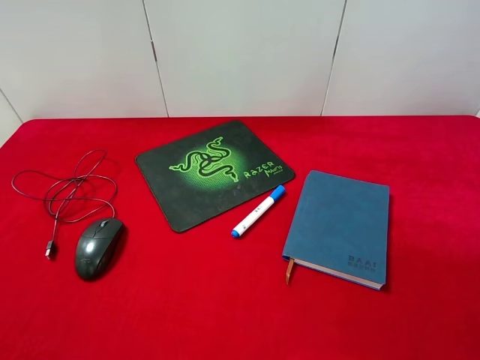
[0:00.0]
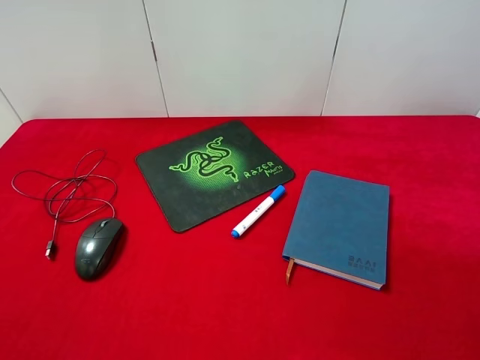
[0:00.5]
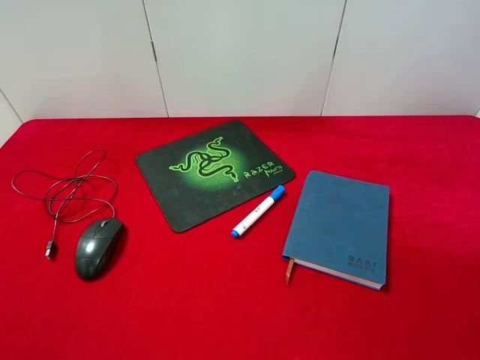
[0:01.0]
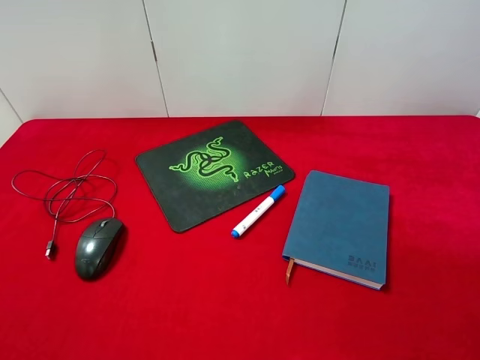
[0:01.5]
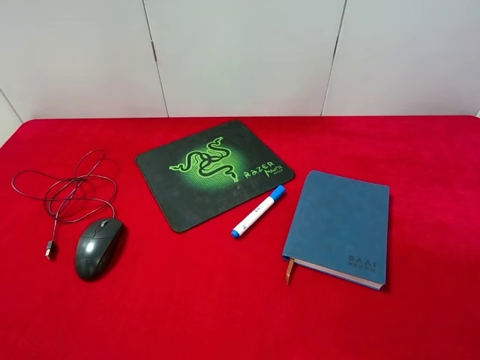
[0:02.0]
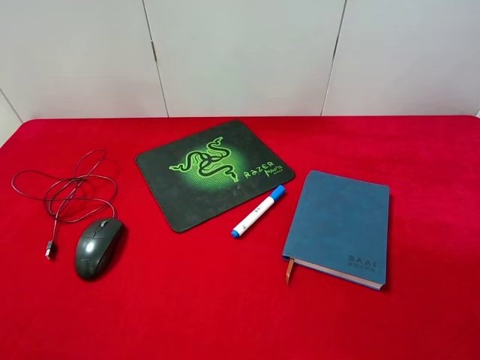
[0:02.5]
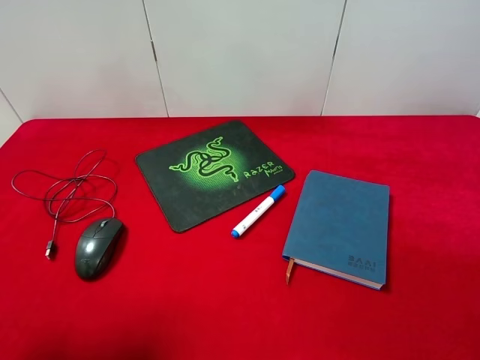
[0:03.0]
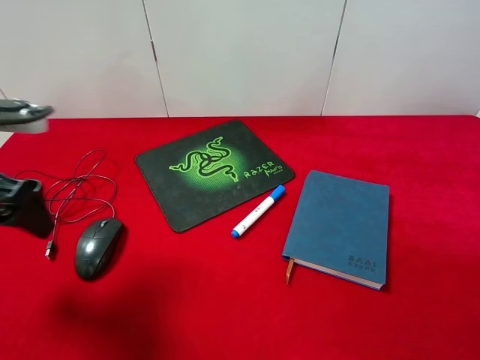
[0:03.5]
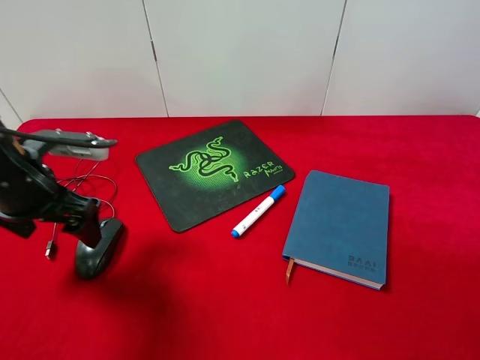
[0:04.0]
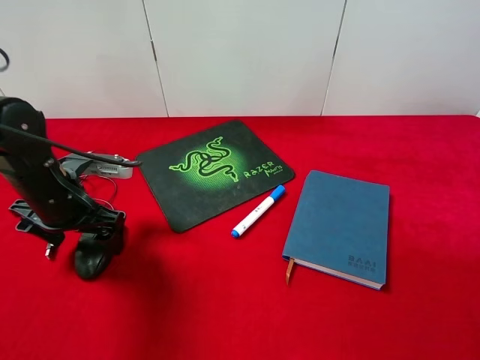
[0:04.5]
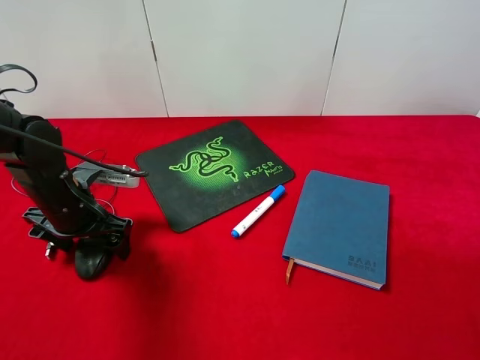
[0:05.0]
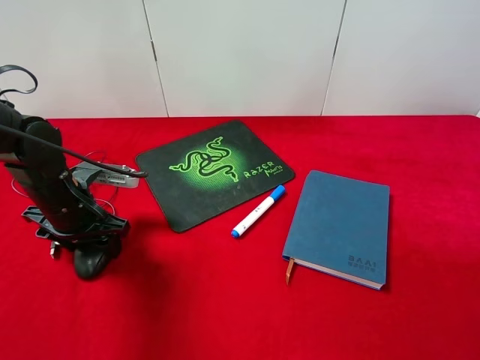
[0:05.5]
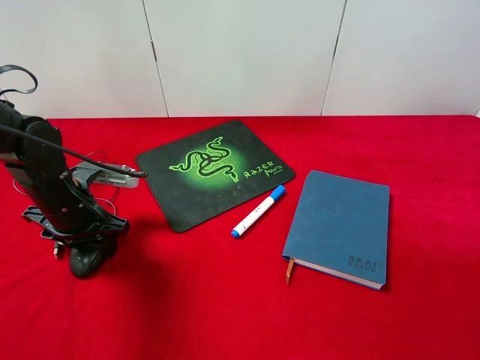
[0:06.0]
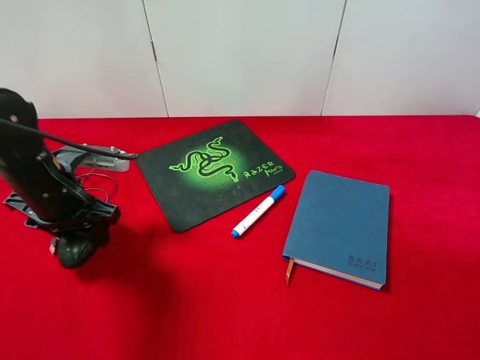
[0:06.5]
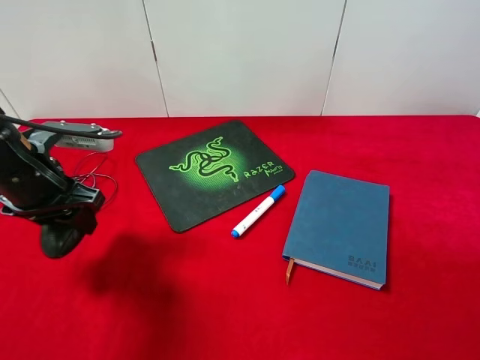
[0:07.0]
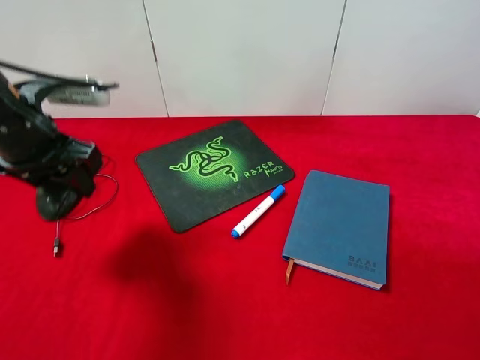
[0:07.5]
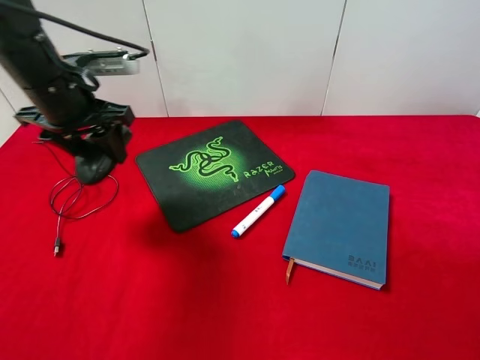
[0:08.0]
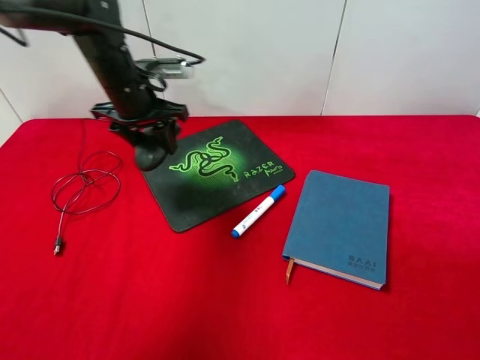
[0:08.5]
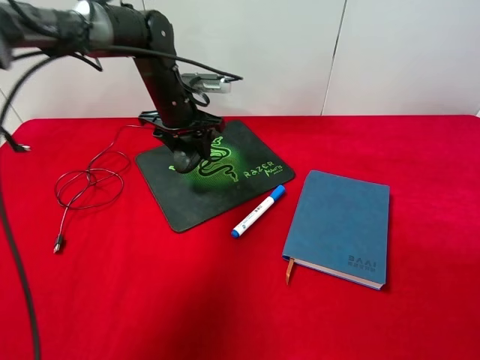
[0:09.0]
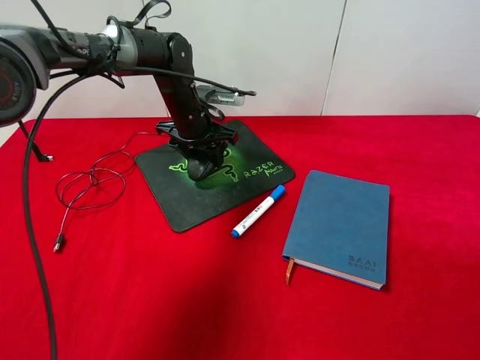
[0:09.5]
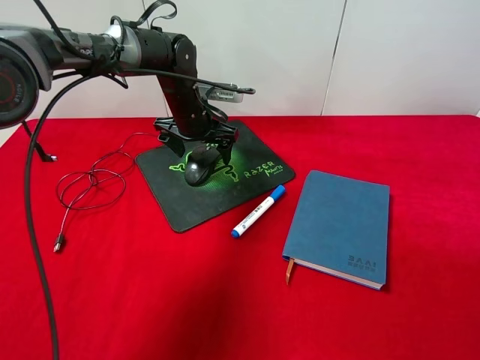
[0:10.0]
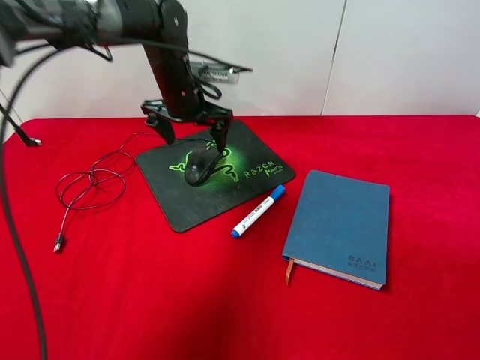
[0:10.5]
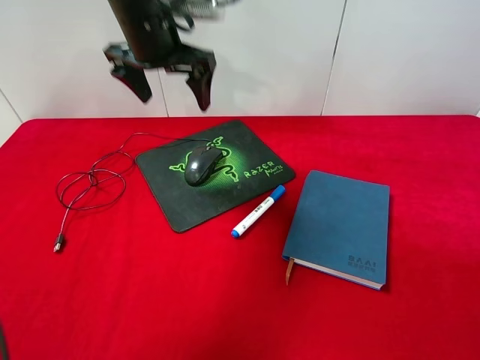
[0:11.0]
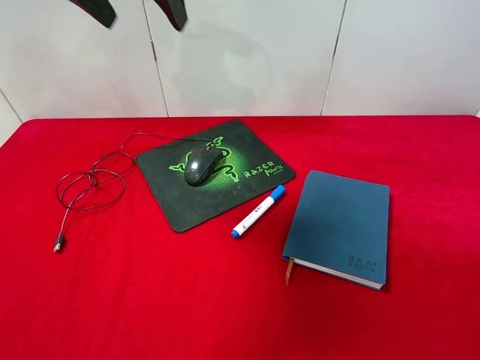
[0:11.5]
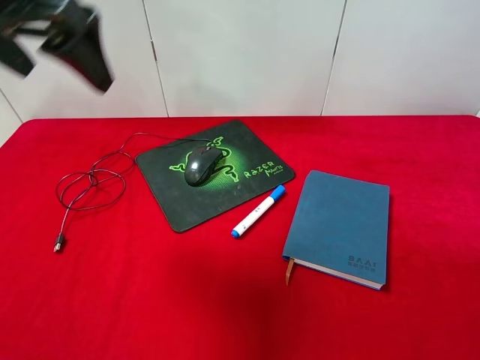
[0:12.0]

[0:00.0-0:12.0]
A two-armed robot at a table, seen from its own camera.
Step, 0:00.0 to 0:06.5: Pick up the mouse with left gripper.
Step, 0:07.0 to 0:10.0: Place the mouse on the mouse pad with left gripper.
0:00.0 to 0:02.0: Both grippers stay put.
0:02.0 to 0:04.0: The left gripper heads forward and downward, covering about 25 cm.
0:04.0 to 0:06.0: The left gripper moves downward, some 10 cm, and closes up.
0:06.0 to 0:08.0: The left gripper travels upward and forward by about 15 cm.
0:08.0 to 0:10.0: The left gripper moves to the right, forward and downward, approximately 20 cm, and opens up.
0:10.0 to 0:12.0: The left gripper heads upward, backward and to the left, covering approximately 35 cm.

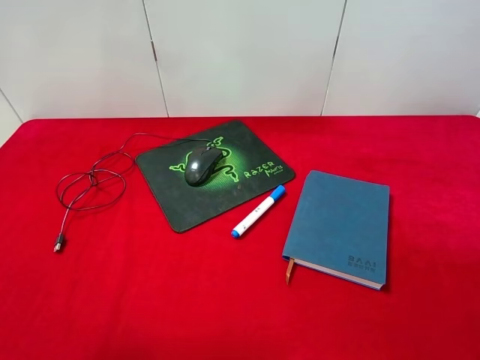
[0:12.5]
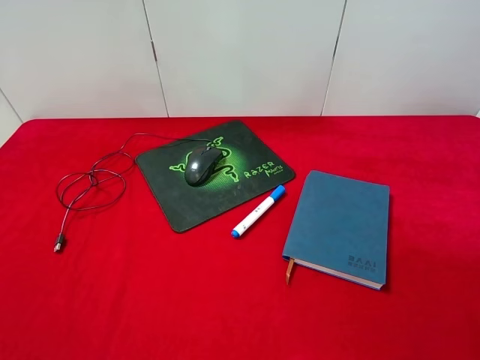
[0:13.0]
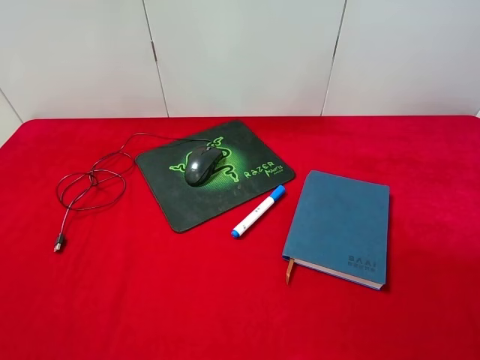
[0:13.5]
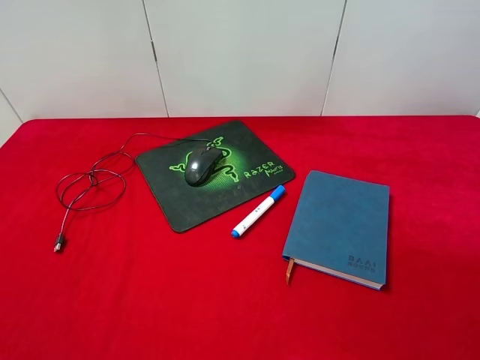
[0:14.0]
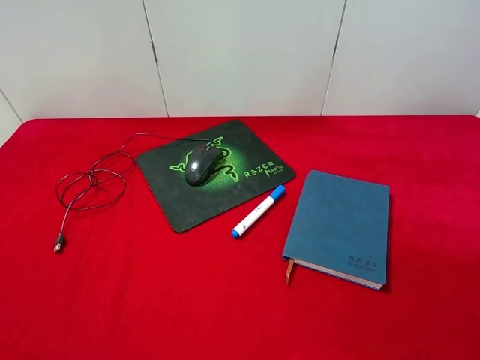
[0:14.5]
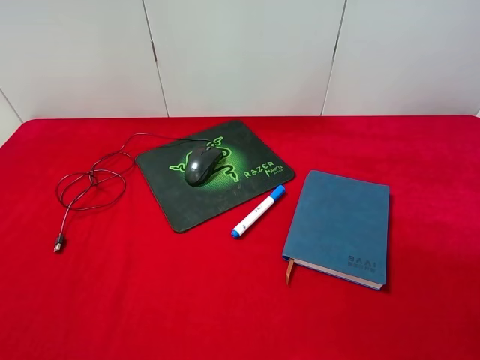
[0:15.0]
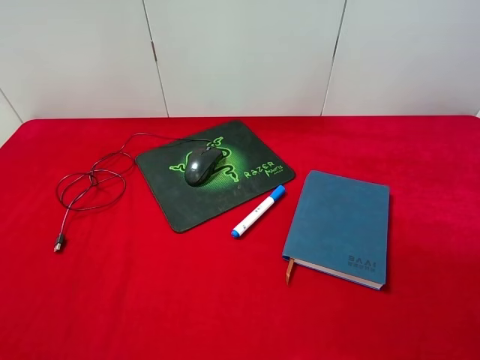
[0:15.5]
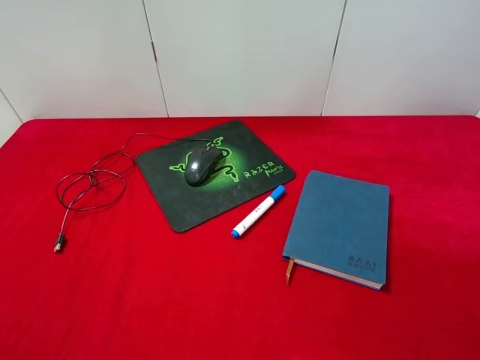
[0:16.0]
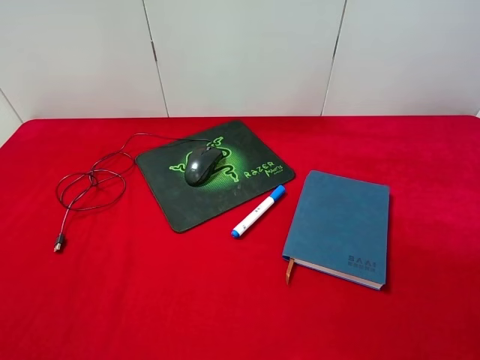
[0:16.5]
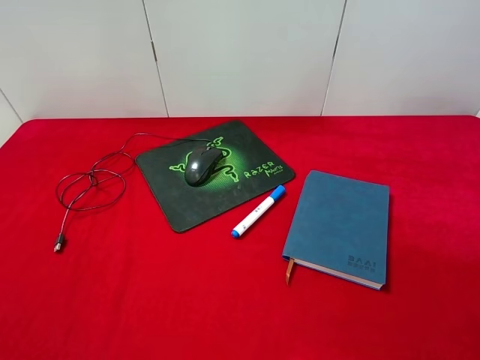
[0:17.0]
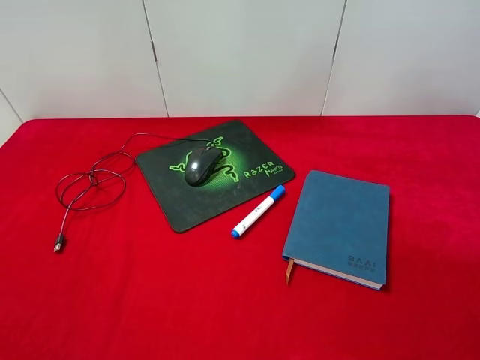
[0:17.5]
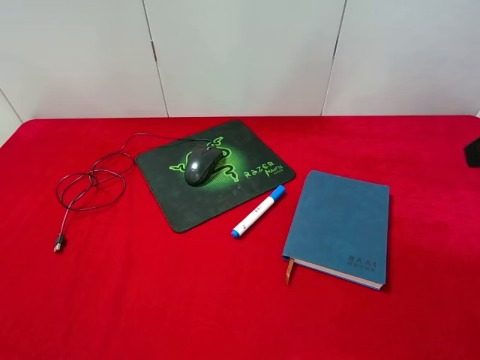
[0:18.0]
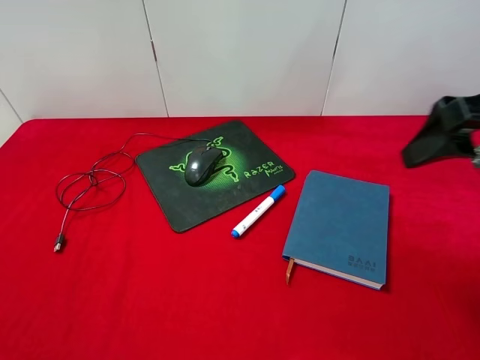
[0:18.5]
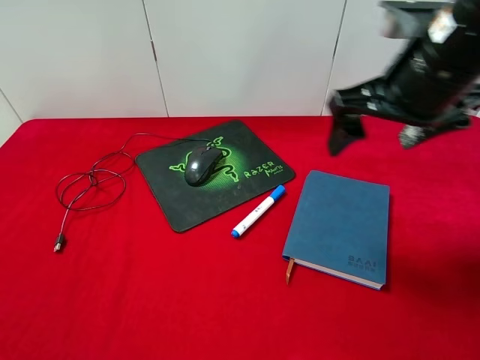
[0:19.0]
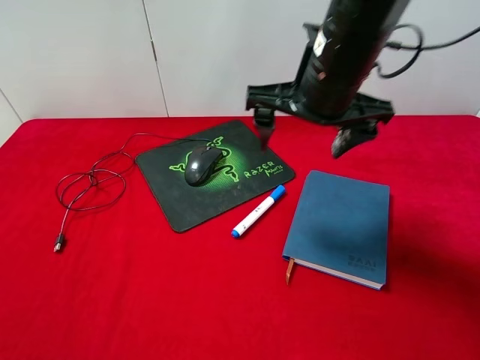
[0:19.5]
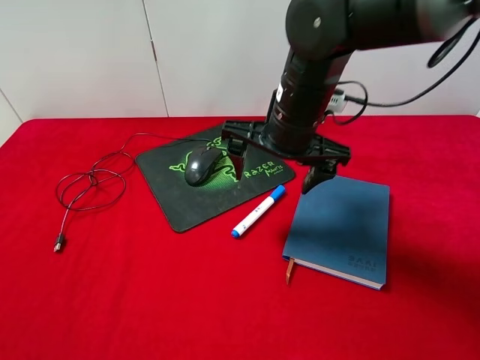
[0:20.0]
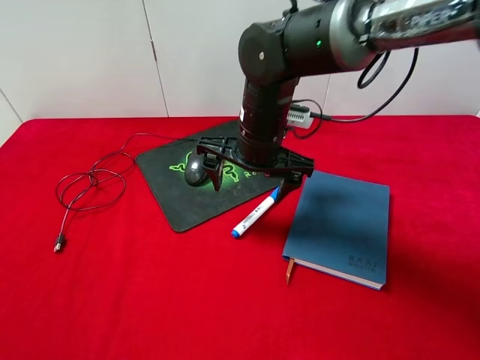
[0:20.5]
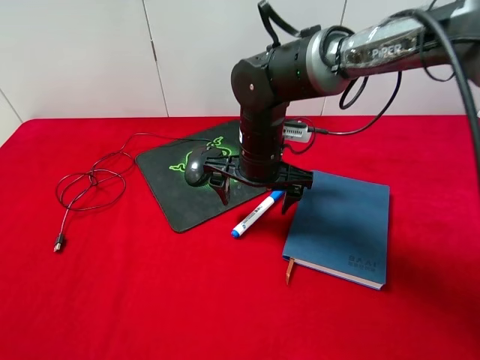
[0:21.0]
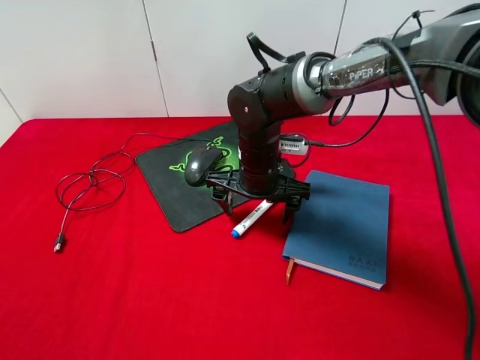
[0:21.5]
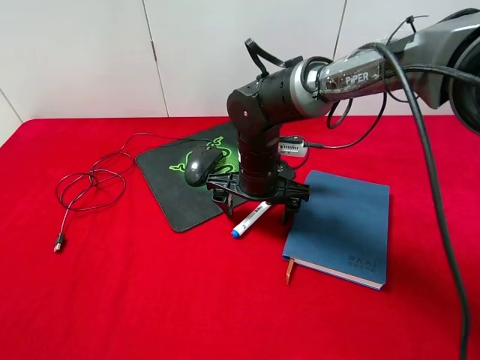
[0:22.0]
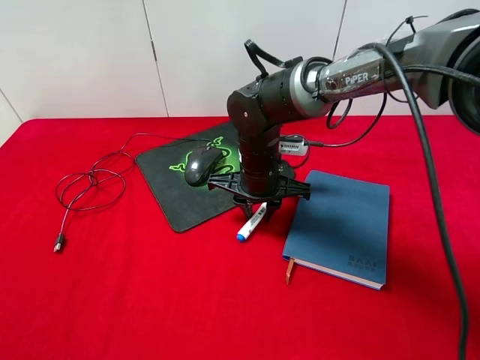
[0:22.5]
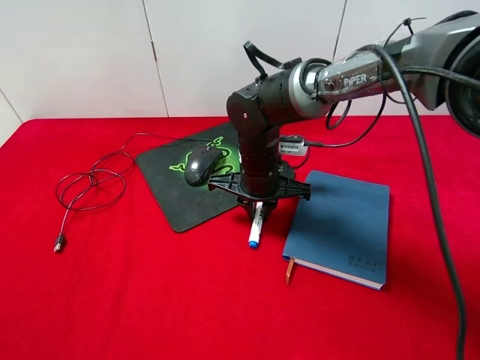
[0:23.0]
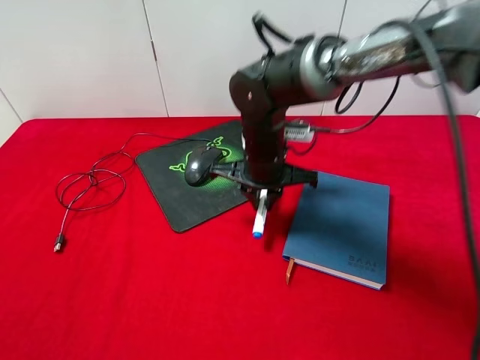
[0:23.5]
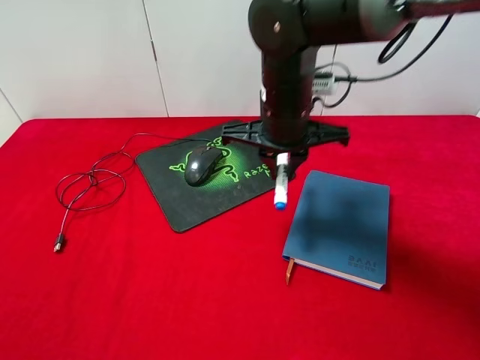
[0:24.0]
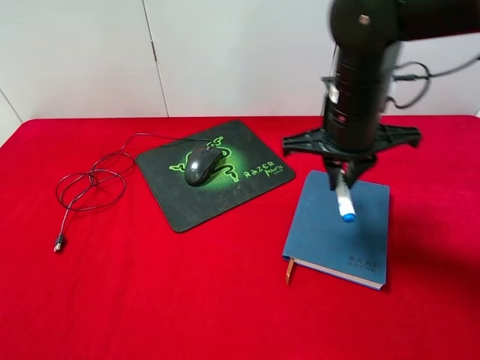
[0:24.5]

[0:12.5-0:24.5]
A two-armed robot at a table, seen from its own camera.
Step, 0:12.5 to 0:23.5: Pick up the marker pen with right gripper.
0:16.5 to 0:18.5: The right gripper goes about 20 cm forward.
0:18.5 to 0:20.5: The right gripper travels to the left, downward and forward by about 30 cm.
0:20.5 to 0:22.5: The right gripper goes roughly 5 cm downward, and closes its fingers.
0:22.5 to 0:24.5: The right gripper goes about 15 cm upward and to the right.

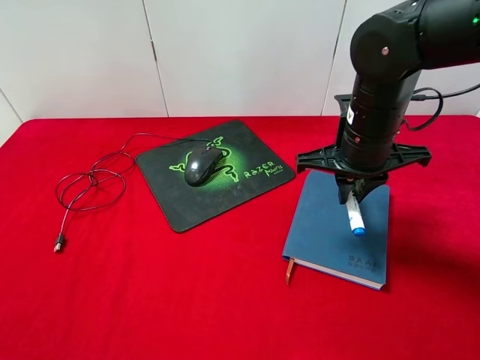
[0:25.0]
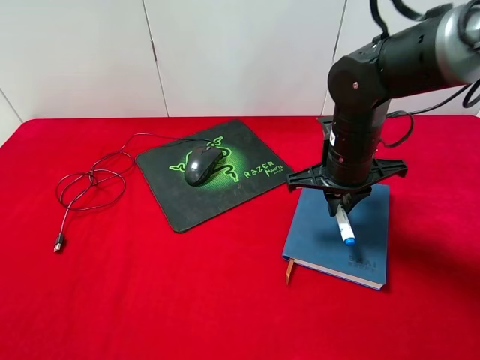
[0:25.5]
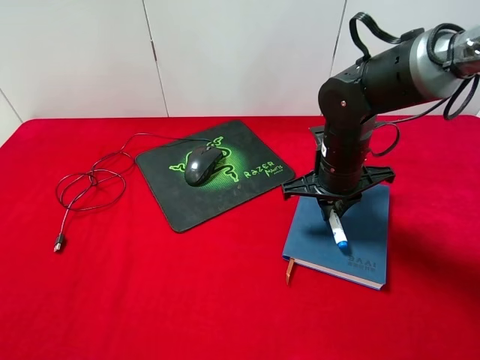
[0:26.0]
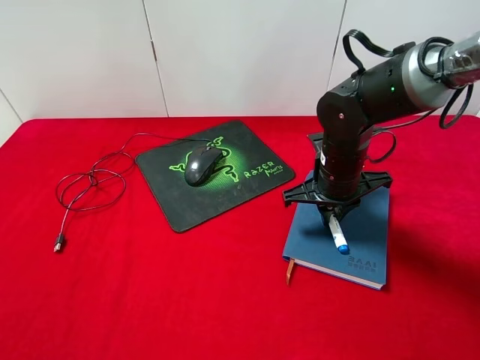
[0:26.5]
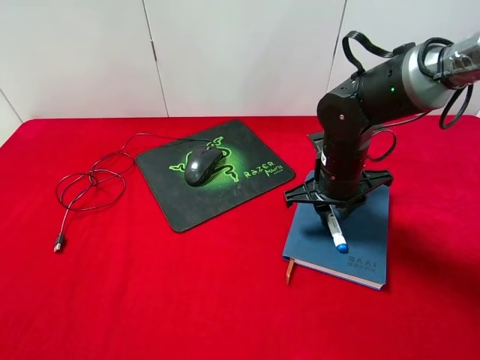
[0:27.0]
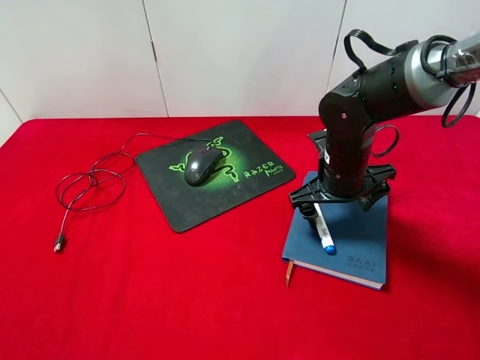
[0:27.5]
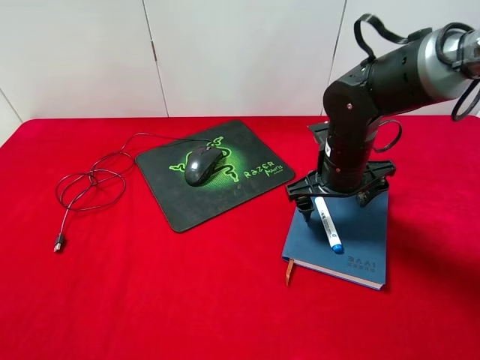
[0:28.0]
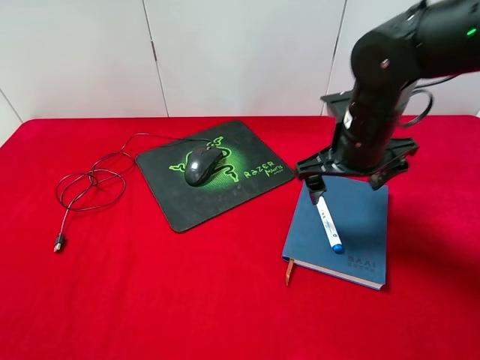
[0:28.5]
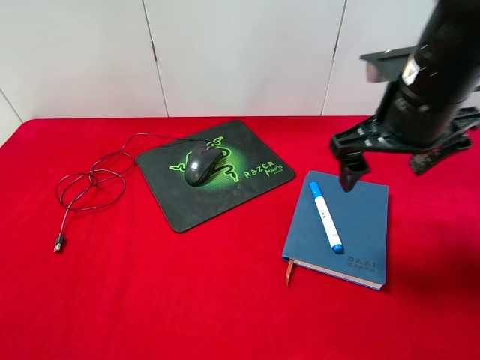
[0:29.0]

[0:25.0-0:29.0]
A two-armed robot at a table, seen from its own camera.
Step, 0:25.0 to 0:28.0: Place the marker pen on the notebook with right gripper.
0:25.0 to 0:27.0: The right gripper is displaced downward by roughly 10 cm, and opens.
0:27.0 to 0:29.0: The right gripper goes some 15 cm upward and backward, and opens up.
